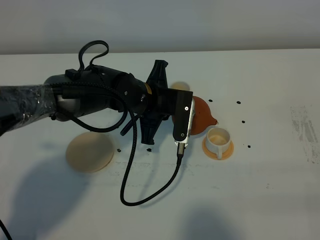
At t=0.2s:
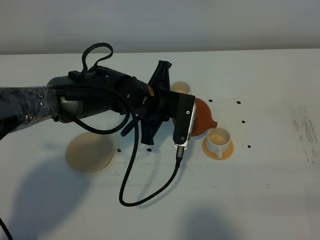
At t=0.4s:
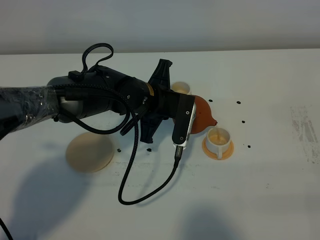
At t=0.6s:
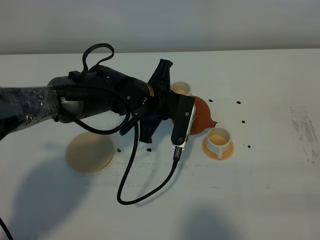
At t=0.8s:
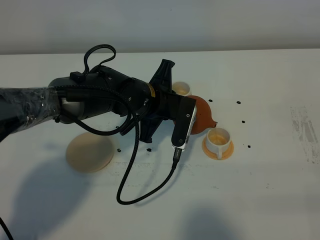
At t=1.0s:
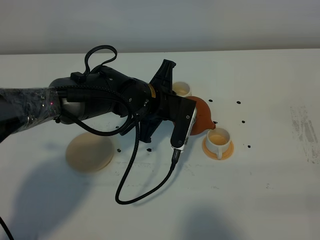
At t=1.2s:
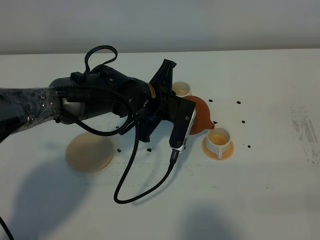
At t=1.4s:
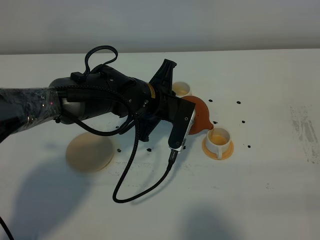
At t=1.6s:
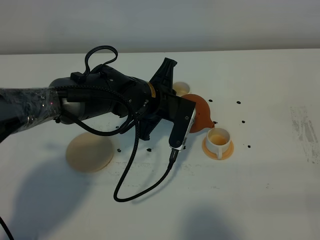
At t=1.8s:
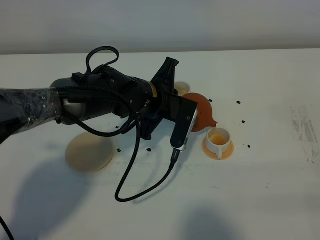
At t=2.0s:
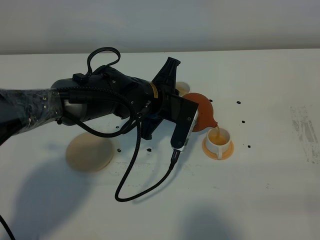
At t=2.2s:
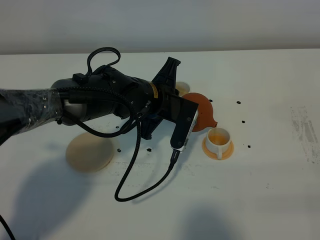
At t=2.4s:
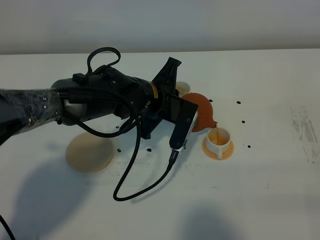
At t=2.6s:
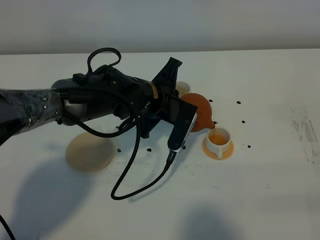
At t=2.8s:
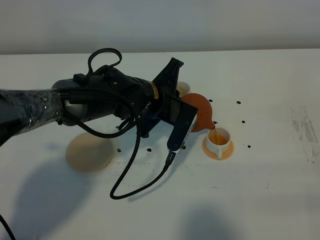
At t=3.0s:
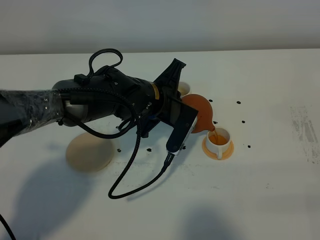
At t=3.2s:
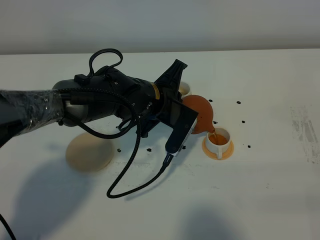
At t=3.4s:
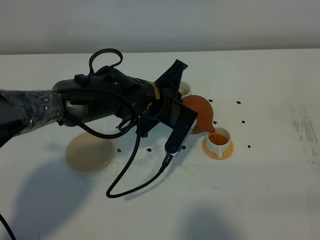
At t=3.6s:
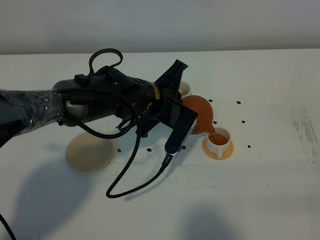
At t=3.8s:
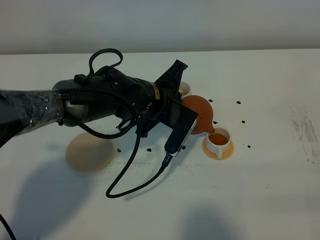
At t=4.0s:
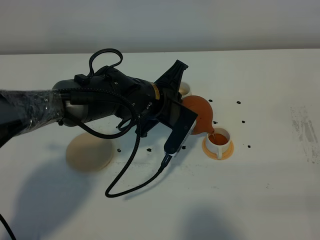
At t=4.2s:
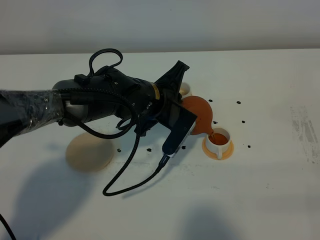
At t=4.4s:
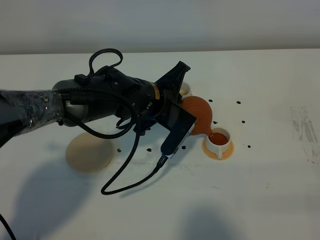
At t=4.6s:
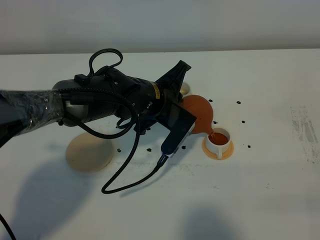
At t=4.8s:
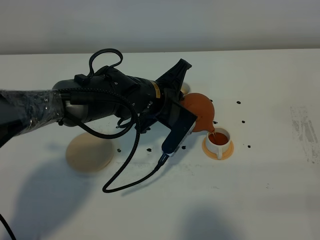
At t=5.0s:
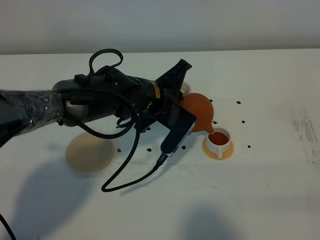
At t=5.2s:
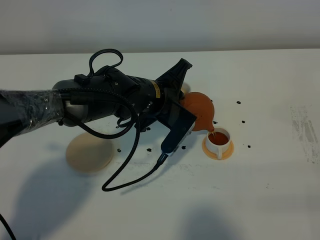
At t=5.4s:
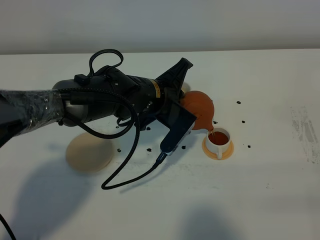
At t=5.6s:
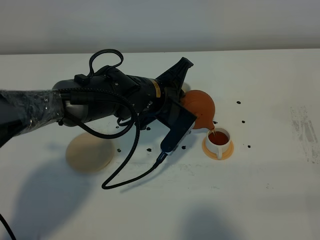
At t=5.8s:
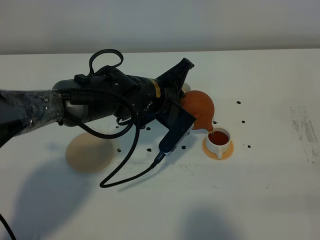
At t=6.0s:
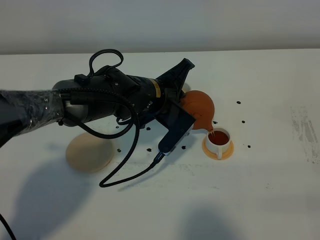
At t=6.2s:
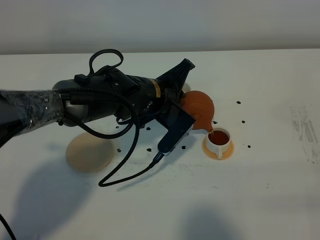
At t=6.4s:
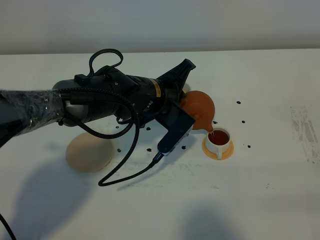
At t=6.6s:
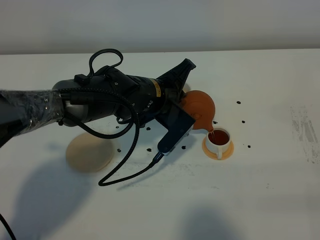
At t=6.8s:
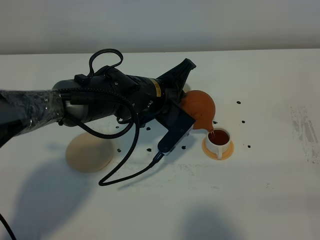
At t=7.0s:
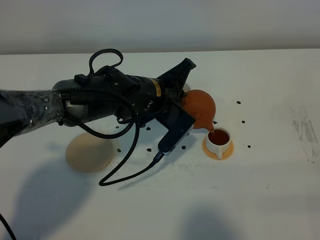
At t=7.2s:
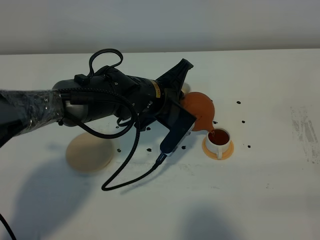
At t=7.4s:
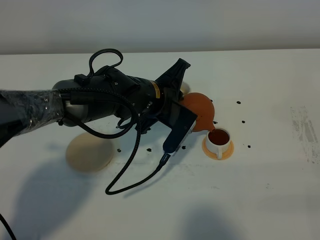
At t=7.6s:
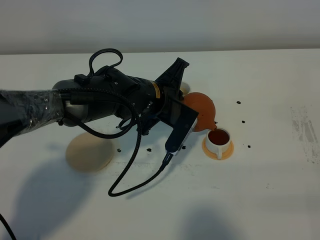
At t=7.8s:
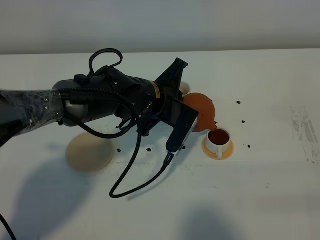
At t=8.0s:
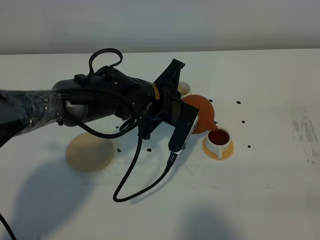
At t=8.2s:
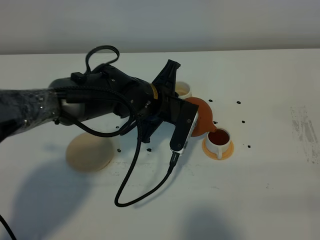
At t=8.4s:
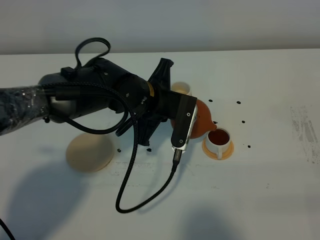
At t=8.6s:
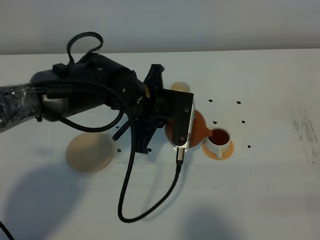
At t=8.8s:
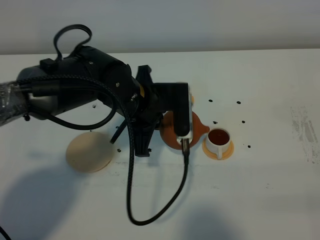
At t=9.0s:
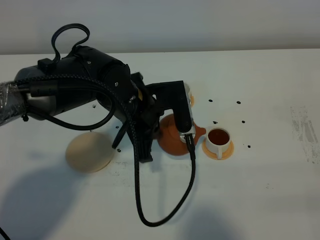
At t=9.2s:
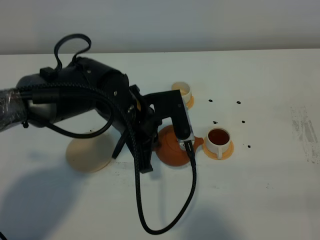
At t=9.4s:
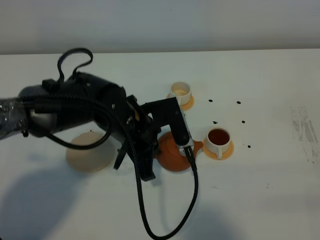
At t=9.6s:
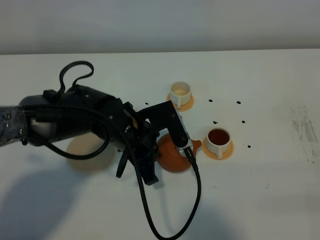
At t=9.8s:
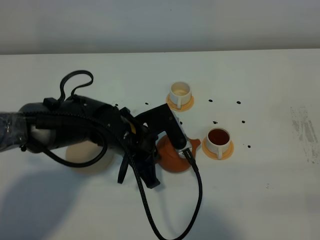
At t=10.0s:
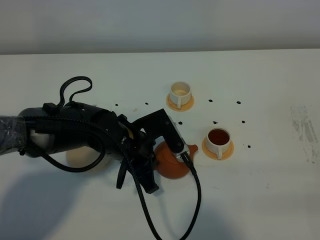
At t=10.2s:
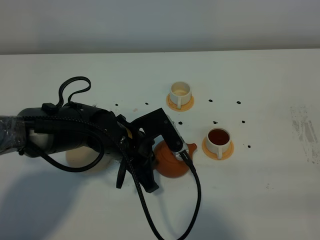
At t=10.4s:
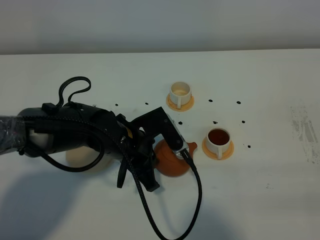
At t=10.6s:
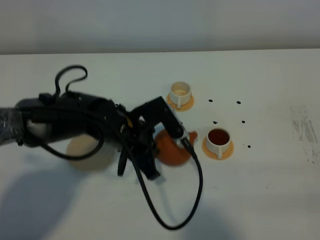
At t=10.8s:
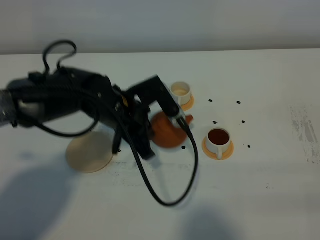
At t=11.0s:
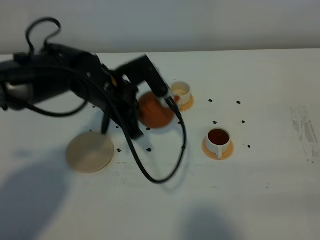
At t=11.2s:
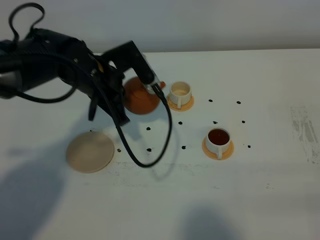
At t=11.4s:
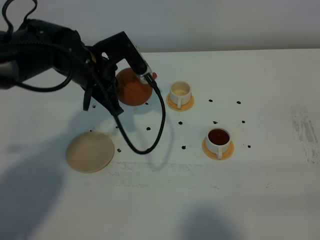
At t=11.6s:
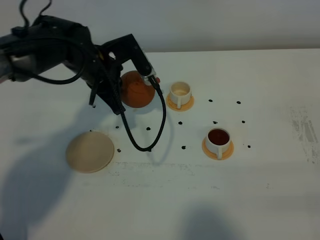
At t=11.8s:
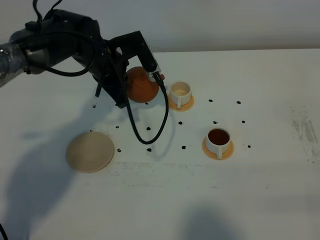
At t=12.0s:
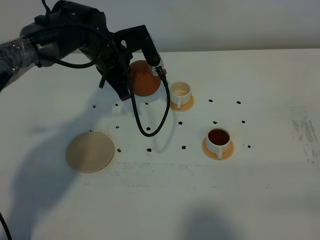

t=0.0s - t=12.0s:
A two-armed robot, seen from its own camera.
Task of the whole recording: grasp the brown teapot and pour the tea into the two white teacups one by one, put the brown teapot back in its original place.
Step, t=0.0s - t=7.8s: Pour tea into the teacup with the left gripper.
t=0.0s - t=1.6s: The grippers move only a little.
t=1.6s - t=4.4s: The grippers move only a little.
t=4.4s - t=7.6s: The grippers make only small movements.
t=7.6s - t=9.0s: The left gripper shifts by approximately 5 cm.
t=9.0s - t=10.4s: The left gripper is displaced downward by some 5 cm.
t=10.4s - t=12.0s: The left gripper heads forward, covering some 15 cm.

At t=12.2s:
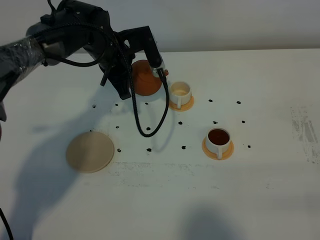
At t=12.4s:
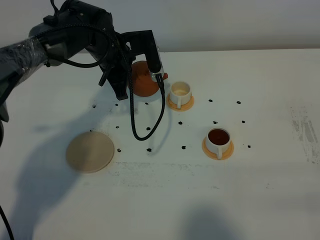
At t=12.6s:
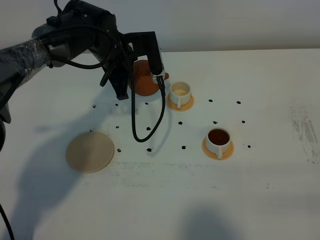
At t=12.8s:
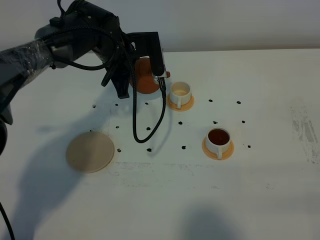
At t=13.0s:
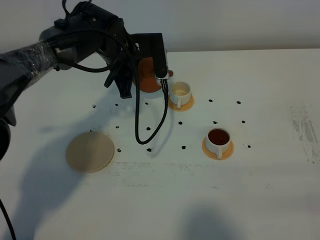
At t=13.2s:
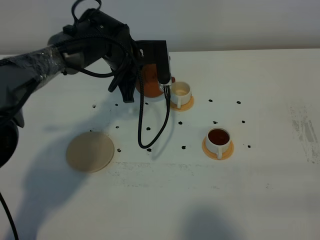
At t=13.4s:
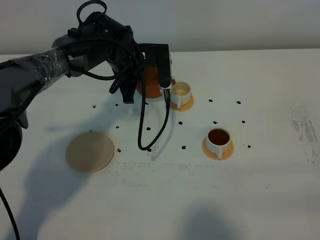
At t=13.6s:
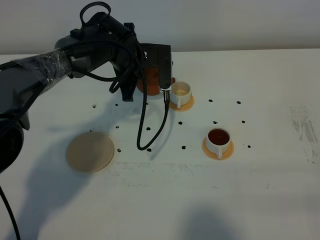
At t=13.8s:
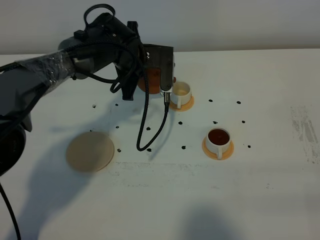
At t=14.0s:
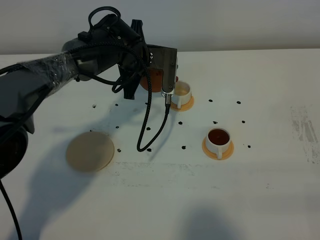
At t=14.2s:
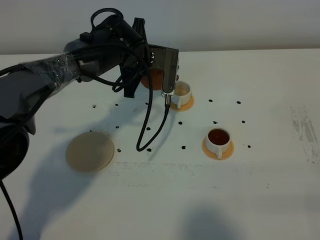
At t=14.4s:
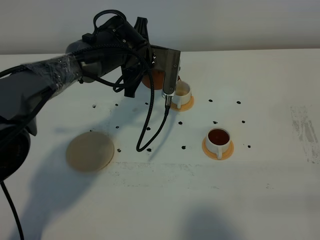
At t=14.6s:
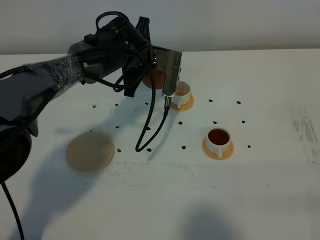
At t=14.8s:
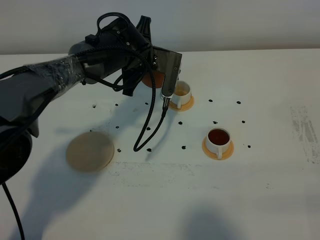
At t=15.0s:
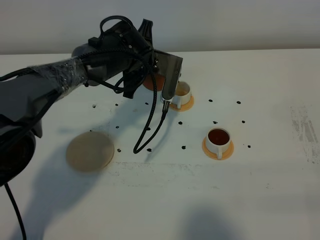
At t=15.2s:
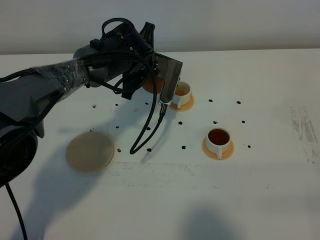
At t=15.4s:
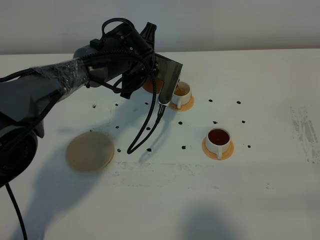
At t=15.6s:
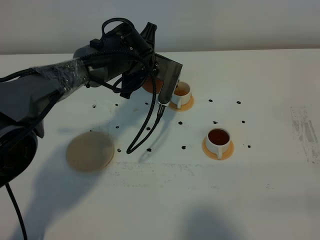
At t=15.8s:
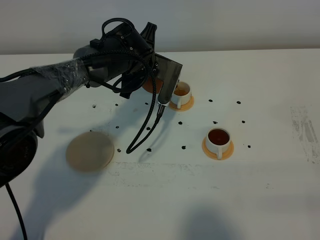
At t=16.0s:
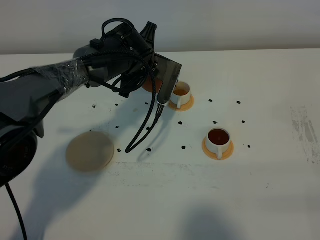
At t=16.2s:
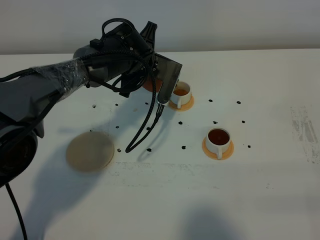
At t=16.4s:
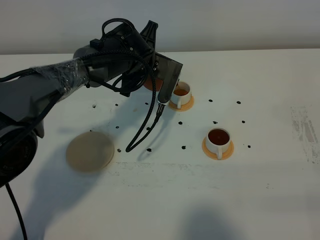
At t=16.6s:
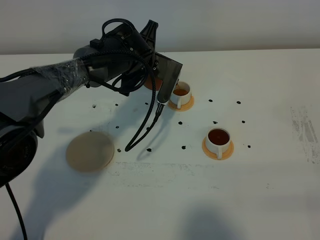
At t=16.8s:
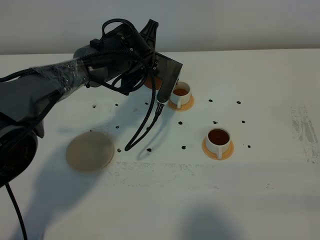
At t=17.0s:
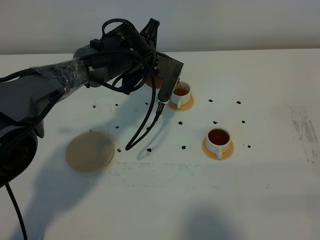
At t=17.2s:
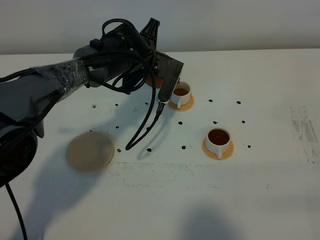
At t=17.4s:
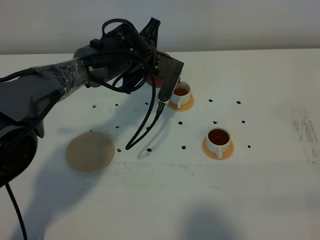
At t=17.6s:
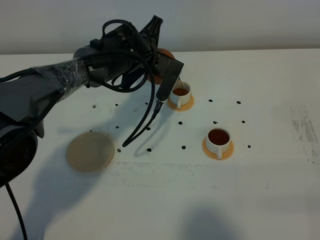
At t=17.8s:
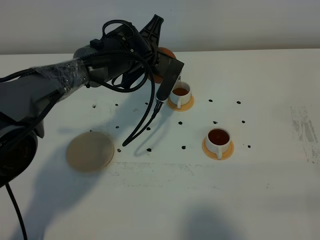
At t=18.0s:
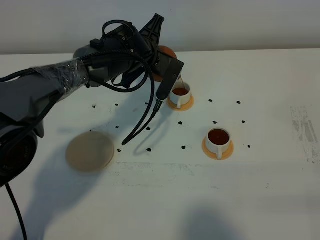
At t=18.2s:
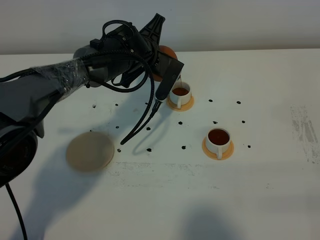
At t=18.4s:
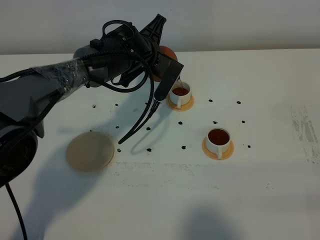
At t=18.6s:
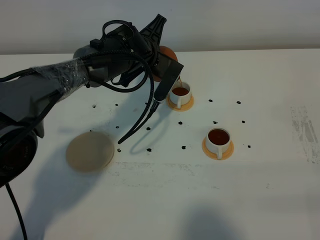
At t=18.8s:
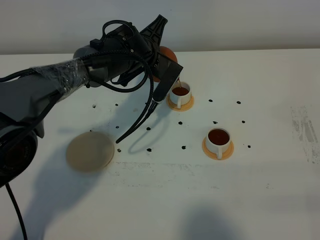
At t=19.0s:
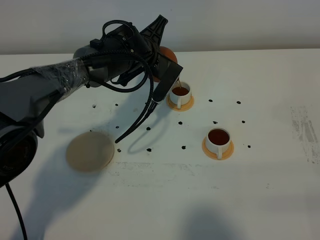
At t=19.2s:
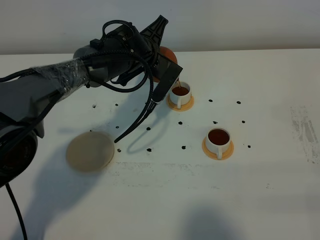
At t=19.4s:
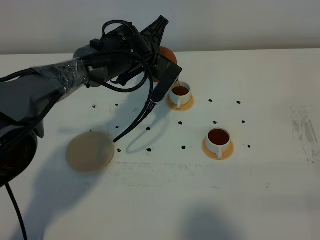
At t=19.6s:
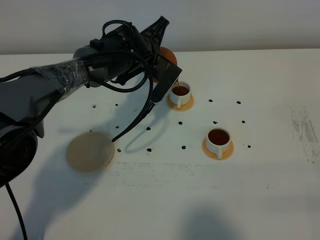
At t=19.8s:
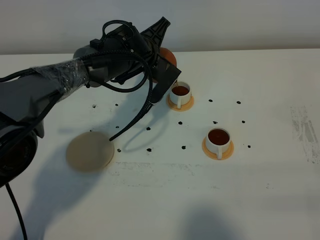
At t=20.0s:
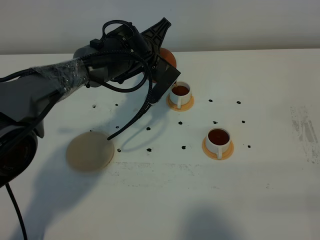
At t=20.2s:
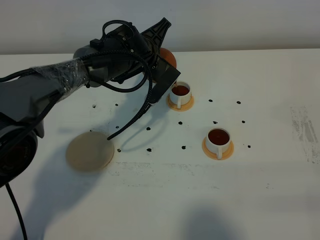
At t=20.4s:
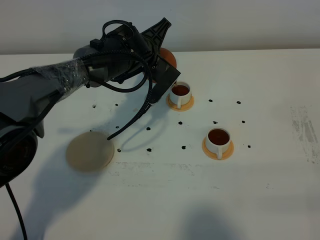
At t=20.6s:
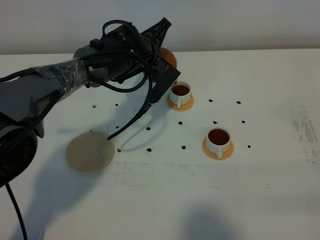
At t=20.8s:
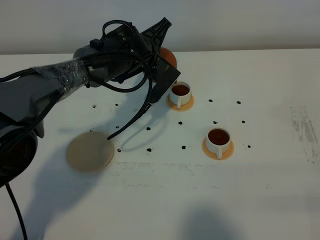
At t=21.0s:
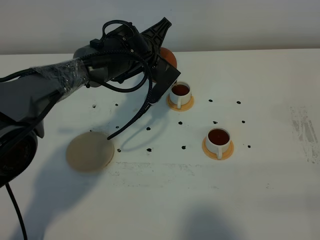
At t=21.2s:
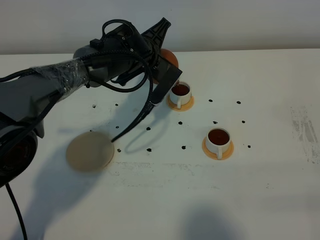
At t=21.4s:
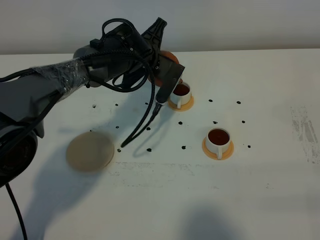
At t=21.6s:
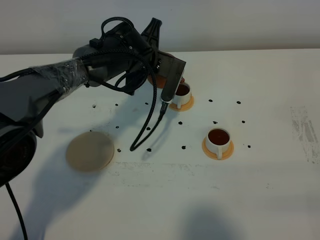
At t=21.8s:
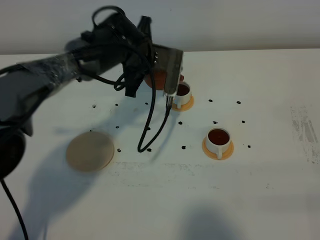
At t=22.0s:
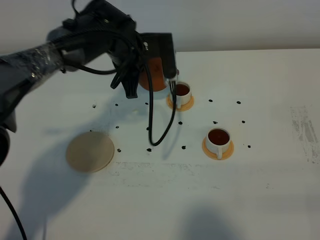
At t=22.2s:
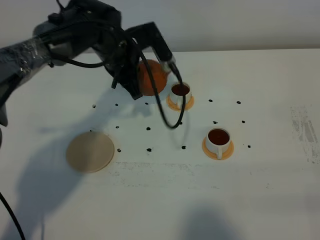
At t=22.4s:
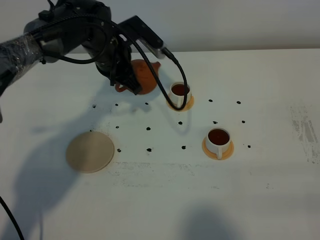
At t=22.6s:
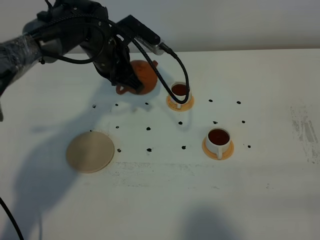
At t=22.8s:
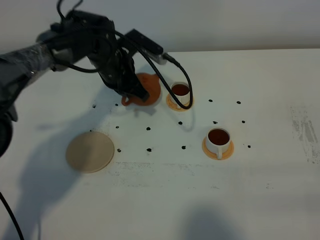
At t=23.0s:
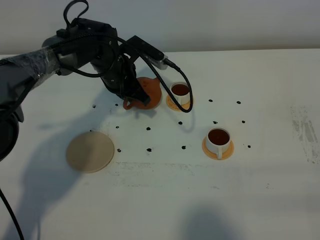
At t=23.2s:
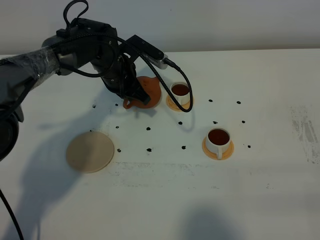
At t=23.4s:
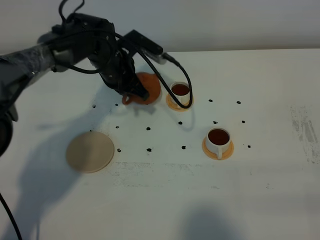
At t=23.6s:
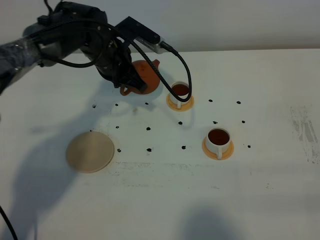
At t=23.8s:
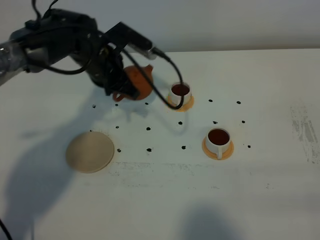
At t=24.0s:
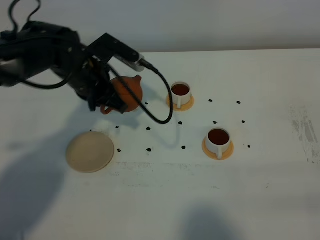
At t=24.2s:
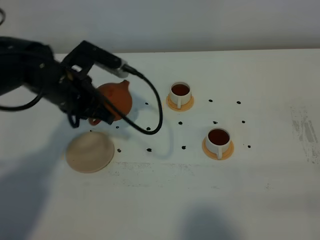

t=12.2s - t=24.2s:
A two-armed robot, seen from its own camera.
Task of the whole recording: grasp the brown teapot and pour the tea into the two white teacups one by one, put the brown teapot back in its original place.
Step, t=12.2s - t=22.0s: Pour tea into the teacup with the left gripper.
t=13.8s - t=15.2s: The grippers stay close to where they were, moving slightly.
t=15.2s - t=16.6s: Both grippers stay put.
t=16.6s - t=19.8s: The grippers make only small movements.
t=19.8s - t=21.2s: The two grippers keep their place.
t=21.2s - t=22.6s: The left gripper heads to the left, covering about 5 cm.
t=22.6s - t=24.2s: The left gripper is displaced backward and to the left by approximately 10 cm.
